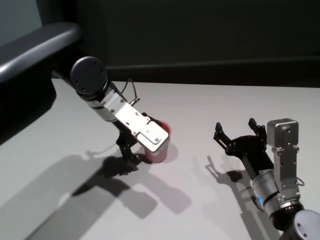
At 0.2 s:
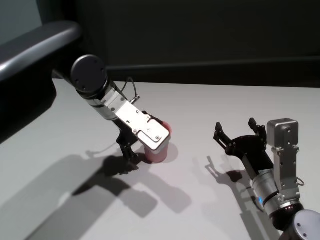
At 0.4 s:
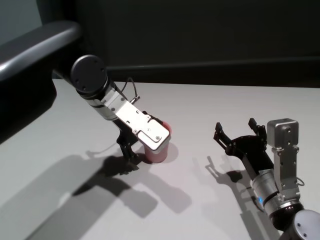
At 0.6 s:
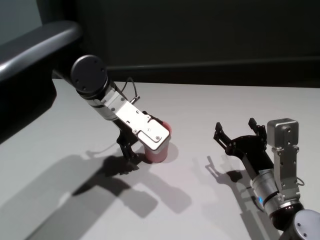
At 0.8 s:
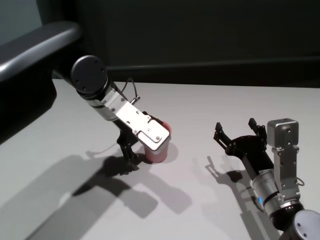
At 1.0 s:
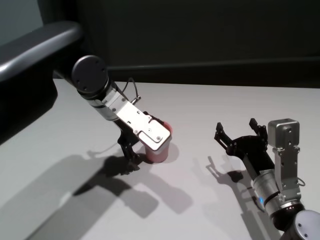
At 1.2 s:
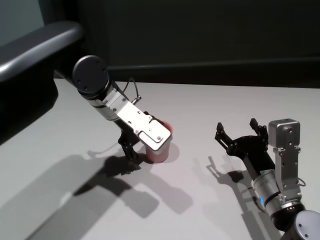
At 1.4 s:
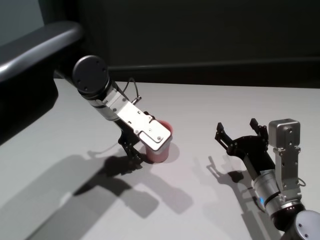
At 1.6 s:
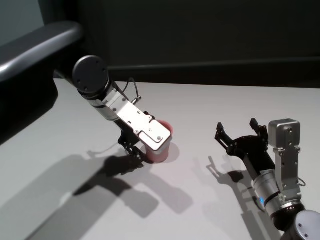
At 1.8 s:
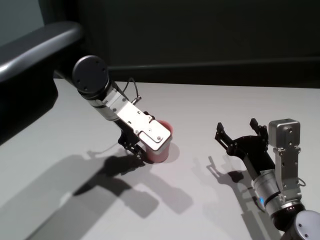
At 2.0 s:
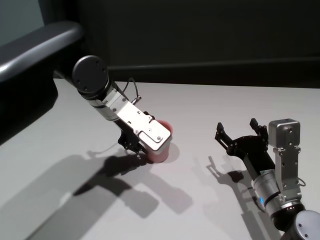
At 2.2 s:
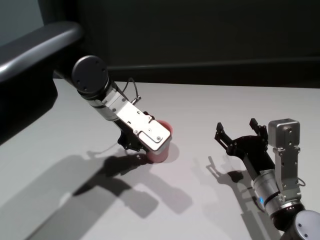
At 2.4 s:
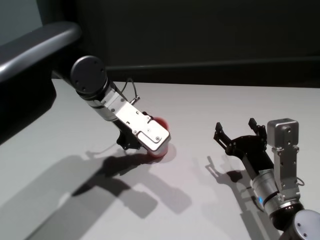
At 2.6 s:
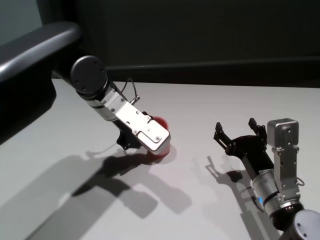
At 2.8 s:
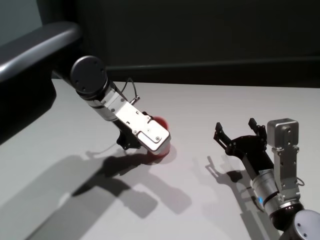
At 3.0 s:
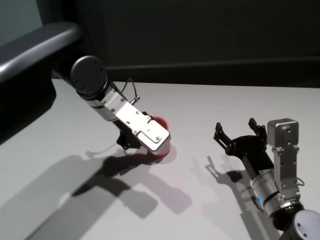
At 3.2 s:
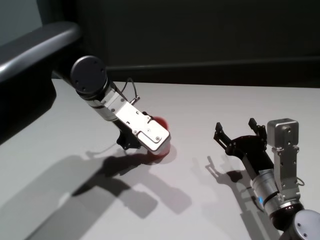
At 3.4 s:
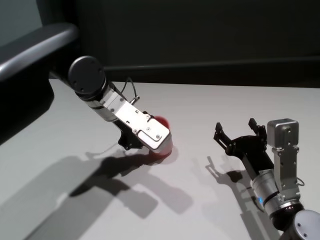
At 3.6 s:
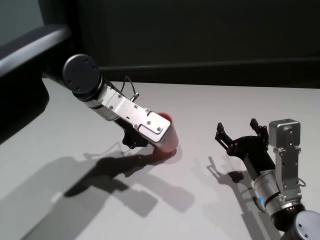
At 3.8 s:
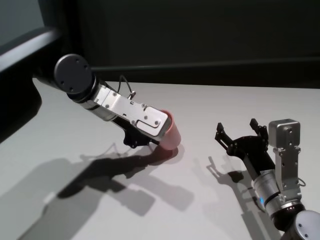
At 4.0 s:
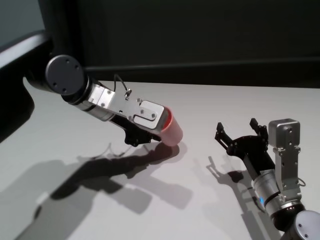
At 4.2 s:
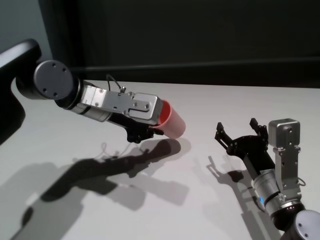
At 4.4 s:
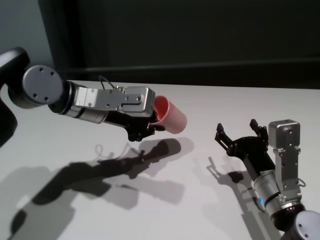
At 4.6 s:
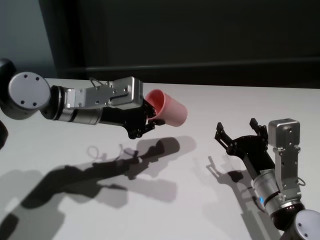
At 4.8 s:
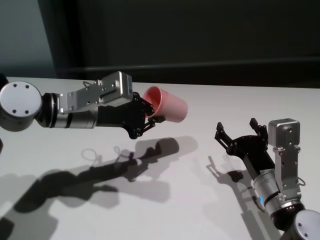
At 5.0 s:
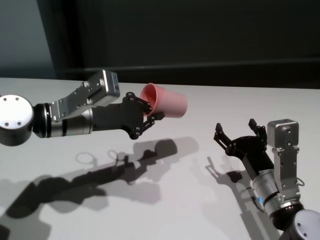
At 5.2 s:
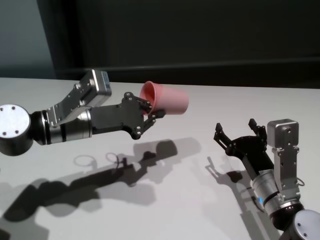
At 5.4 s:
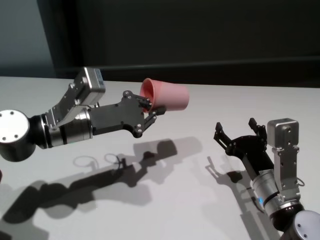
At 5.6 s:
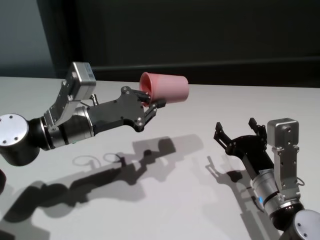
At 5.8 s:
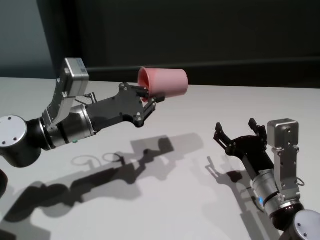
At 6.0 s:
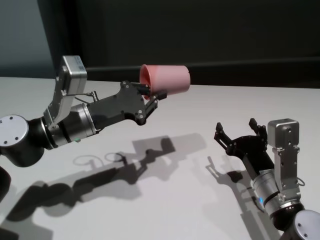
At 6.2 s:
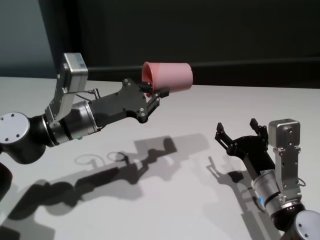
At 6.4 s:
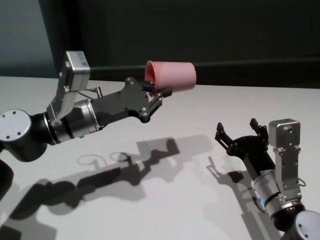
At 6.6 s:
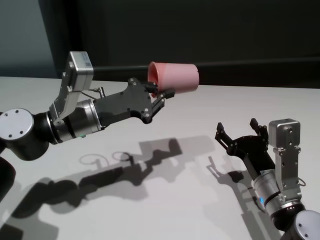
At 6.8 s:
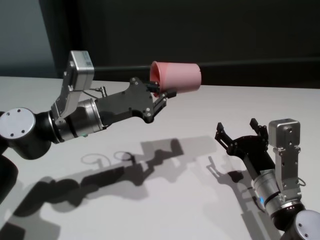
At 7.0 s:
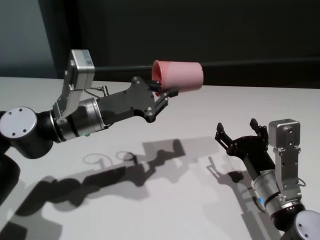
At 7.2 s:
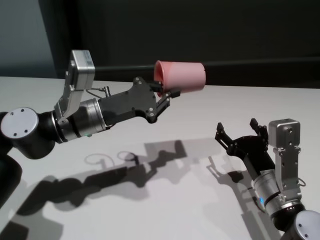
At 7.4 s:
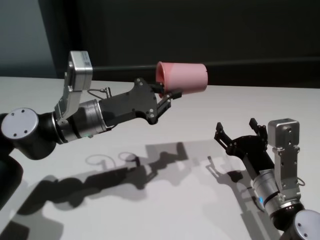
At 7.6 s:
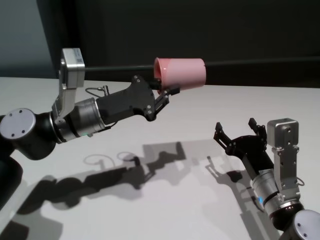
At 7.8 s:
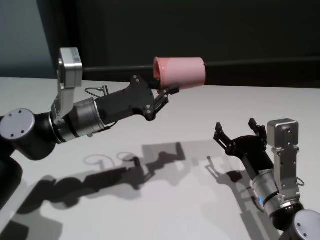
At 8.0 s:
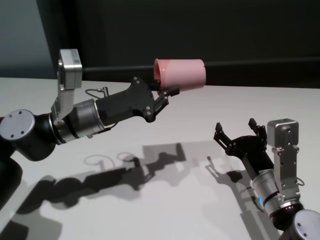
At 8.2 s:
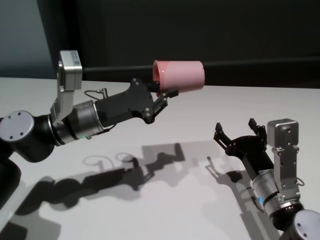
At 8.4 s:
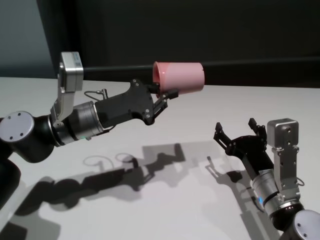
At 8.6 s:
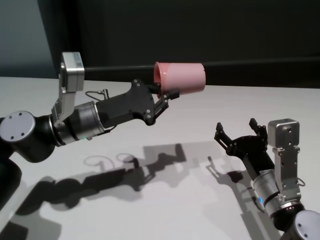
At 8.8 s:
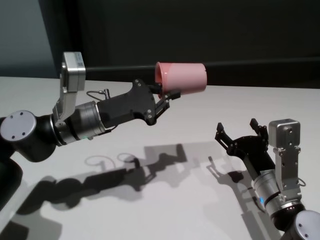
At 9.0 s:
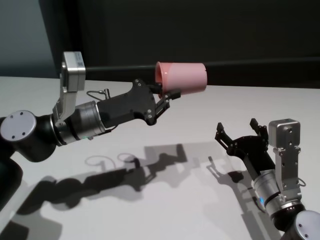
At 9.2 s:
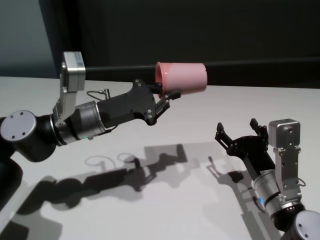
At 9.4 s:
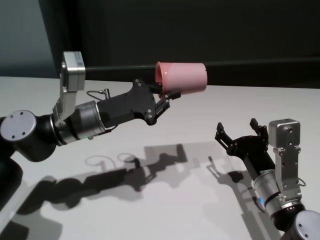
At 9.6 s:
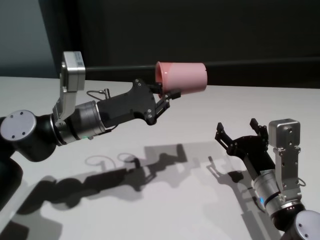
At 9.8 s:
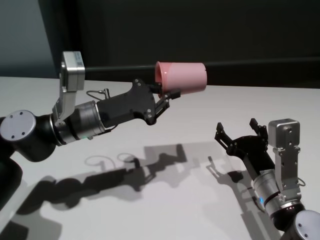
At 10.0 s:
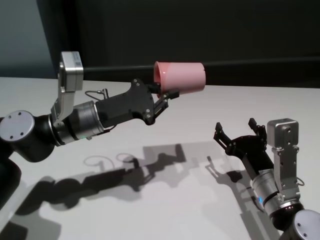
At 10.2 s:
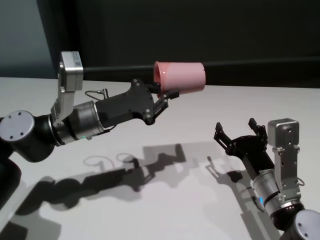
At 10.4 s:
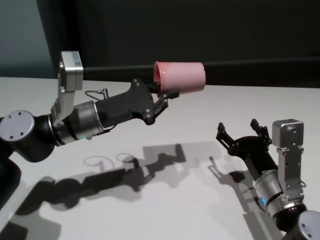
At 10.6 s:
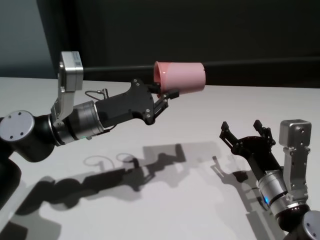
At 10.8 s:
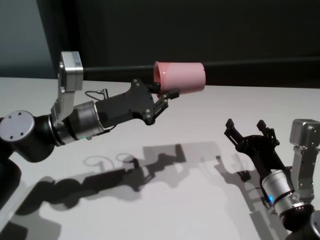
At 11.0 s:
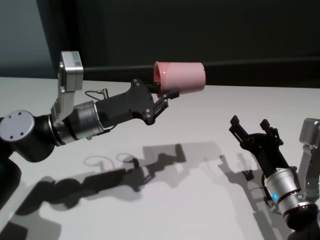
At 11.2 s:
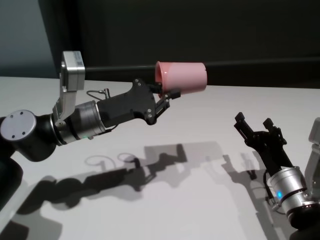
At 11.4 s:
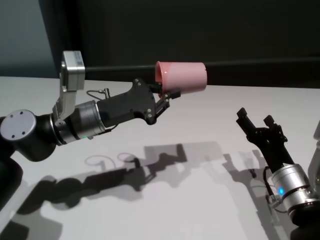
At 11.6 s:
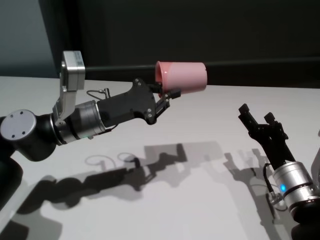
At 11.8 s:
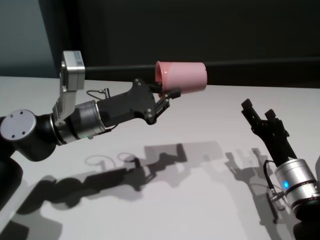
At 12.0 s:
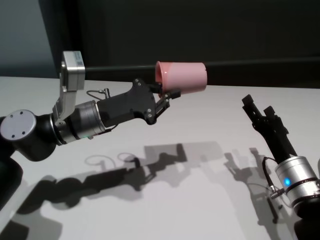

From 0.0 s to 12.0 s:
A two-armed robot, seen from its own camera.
Task of the whole recording: On the white table pick up the cup with one hand and transfer it to the other hand before turning it over.
Step, from 0.0 s to 2.4 s: Grasp the cup with left gripper.

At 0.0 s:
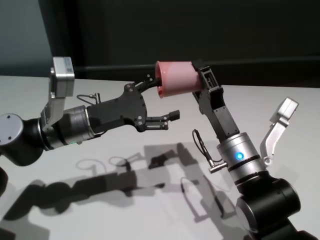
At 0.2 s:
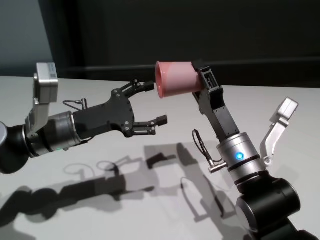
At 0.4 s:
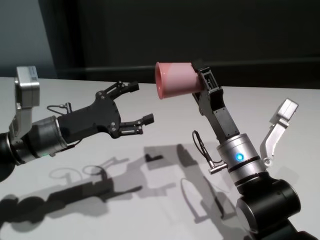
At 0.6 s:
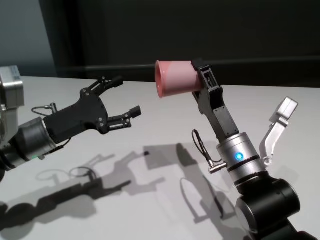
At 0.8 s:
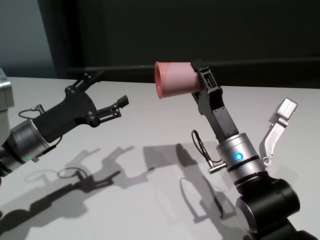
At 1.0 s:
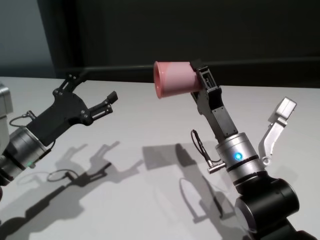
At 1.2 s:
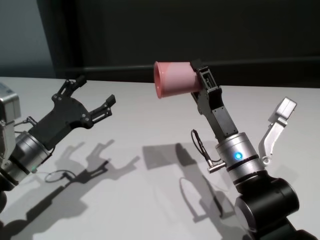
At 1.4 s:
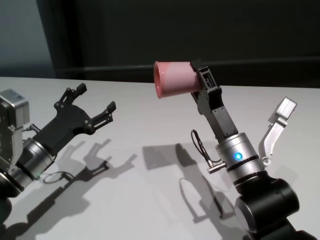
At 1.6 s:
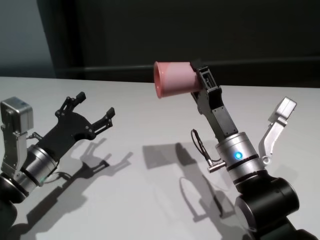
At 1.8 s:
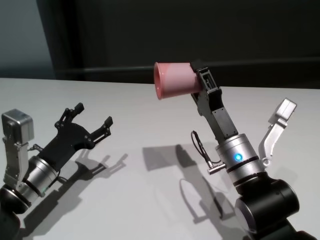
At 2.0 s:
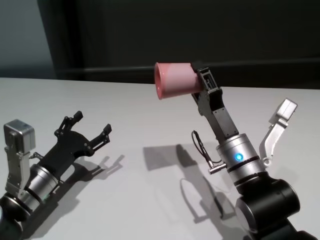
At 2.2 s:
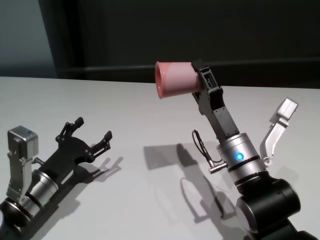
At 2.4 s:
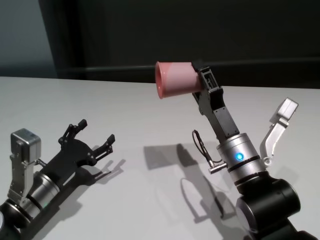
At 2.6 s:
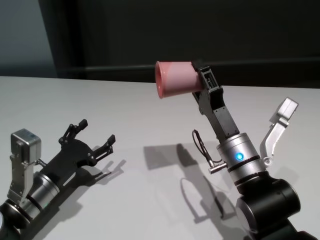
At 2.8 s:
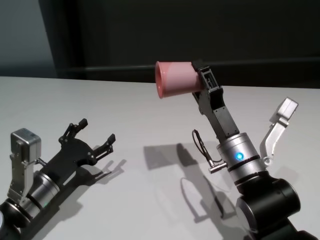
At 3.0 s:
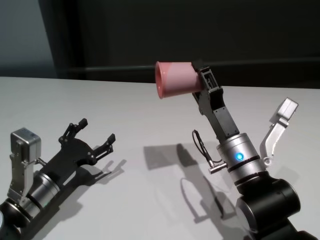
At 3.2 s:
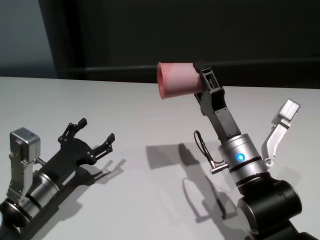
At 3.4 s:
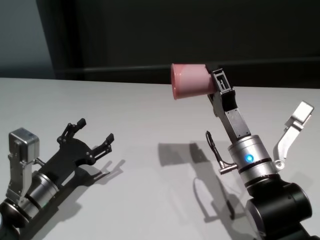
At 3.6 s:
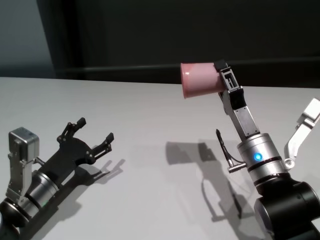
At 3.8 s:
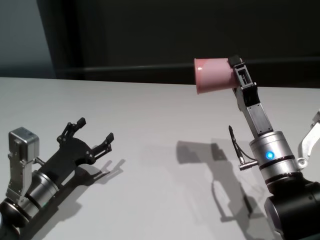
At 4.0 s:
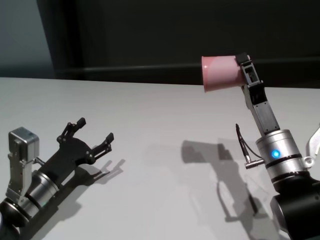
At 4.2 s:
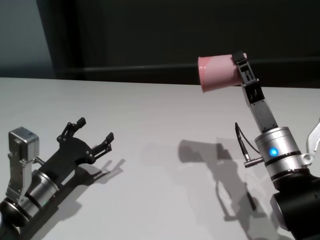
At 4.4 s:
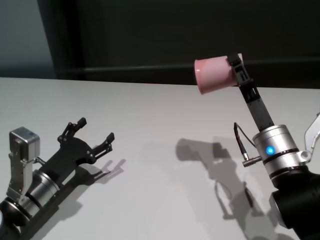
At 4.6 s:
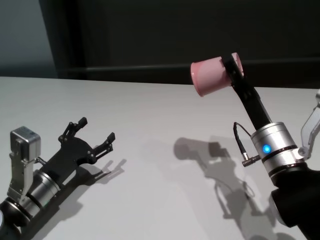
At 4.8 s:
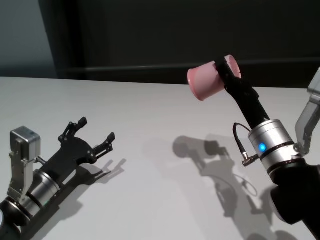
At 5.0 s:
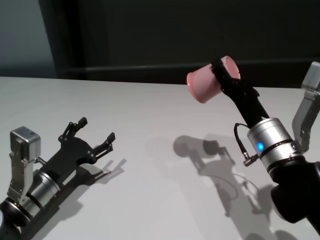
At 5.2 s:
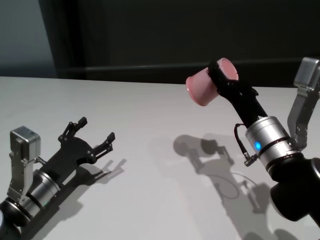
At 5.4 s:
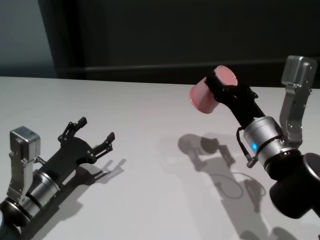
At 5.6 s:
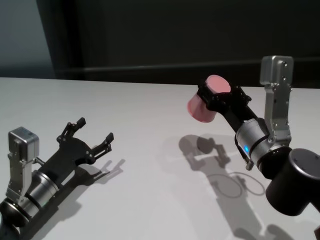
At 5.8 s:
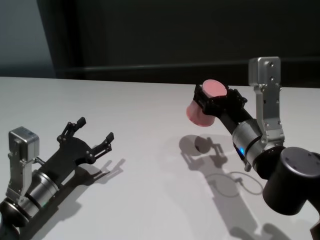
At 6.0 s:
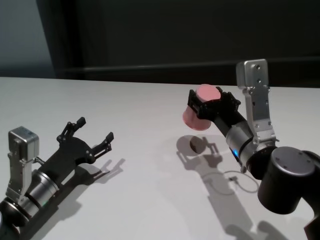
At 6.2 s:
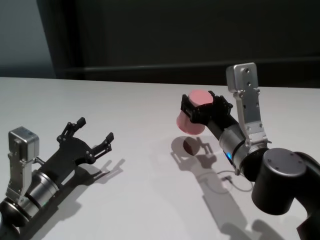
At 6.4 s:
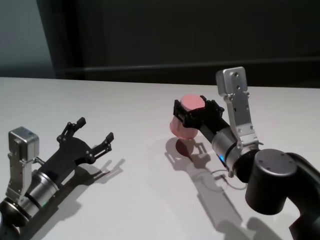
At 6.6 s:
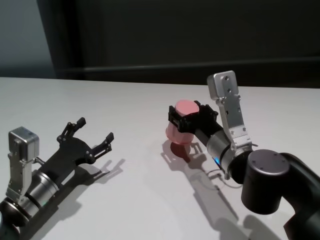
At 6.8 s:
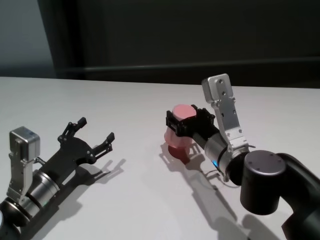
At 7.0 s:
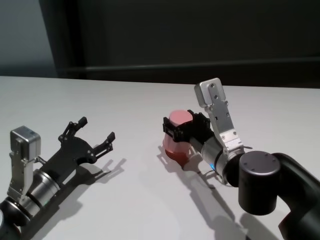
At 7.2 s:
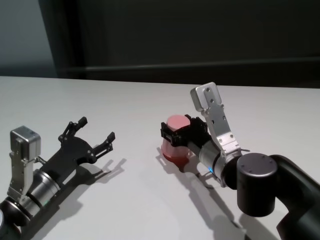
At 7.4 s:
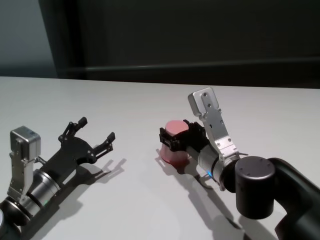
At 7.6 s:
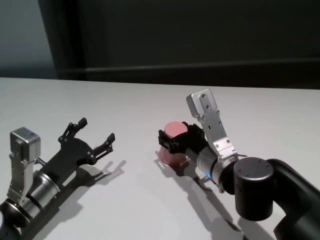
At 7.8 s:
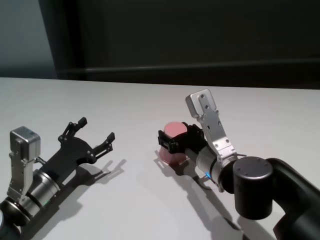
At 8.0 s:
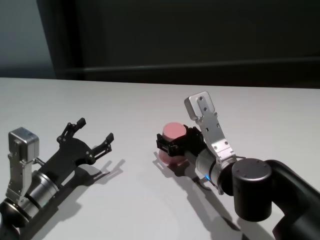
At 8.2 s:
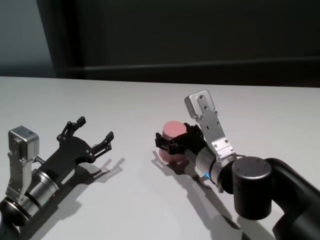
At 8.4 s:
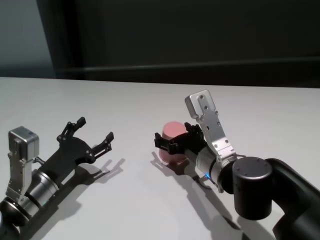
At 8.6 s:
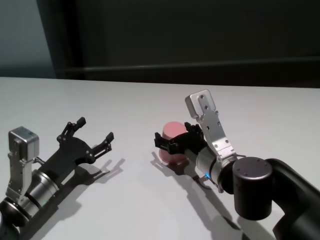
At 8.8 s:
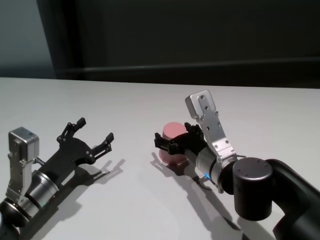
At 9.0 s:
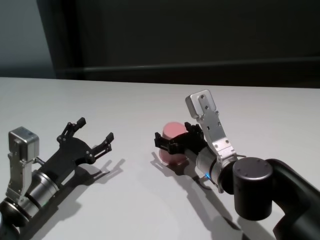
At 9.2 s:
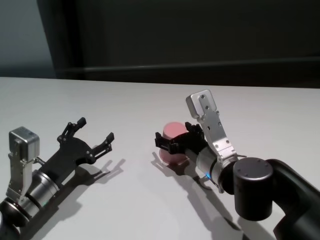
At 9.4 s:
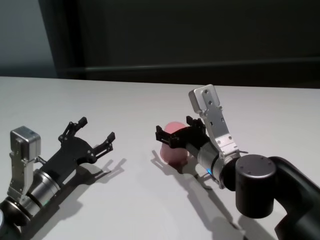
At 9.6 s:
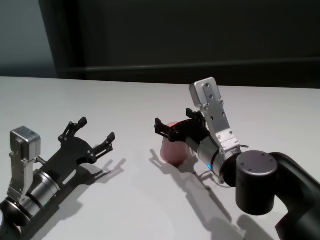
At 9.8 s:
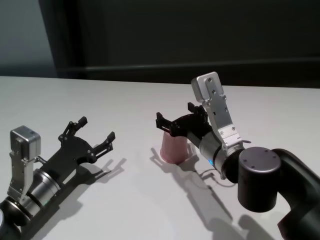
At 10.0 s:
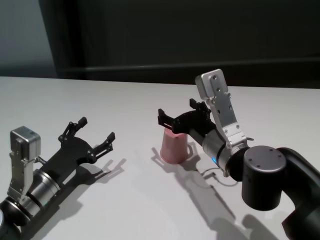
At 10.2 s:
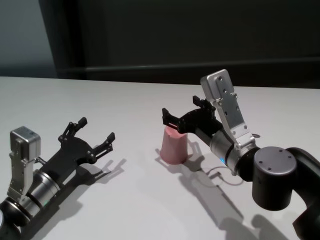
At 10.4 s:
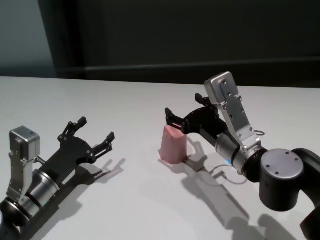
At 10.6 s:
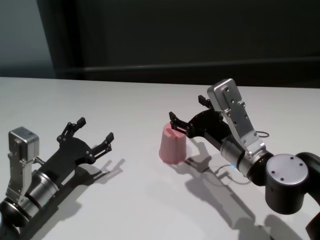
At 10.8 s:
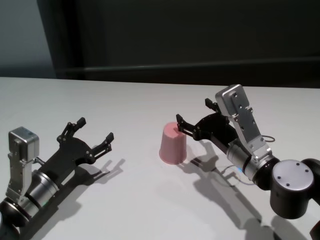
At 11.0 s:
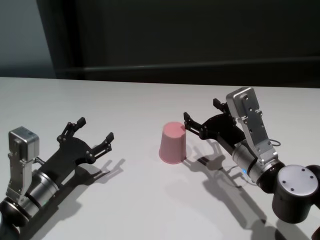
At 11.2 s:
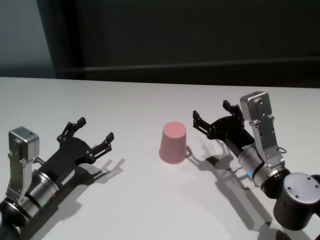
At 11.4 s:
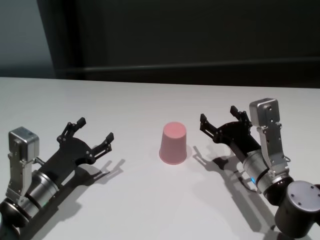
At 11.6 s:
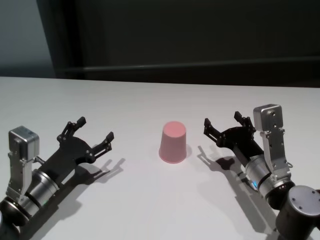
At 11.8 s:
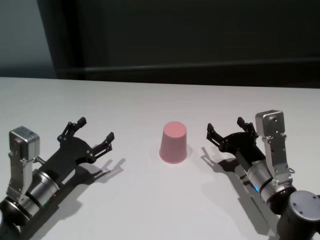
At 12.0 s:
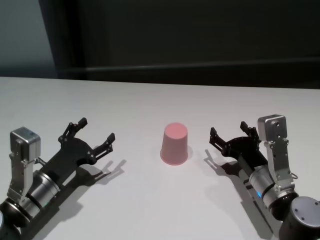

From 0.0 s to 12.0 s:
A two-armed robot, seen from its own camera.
Task of the whole recording: On the white table pick up the cup with one hand and transfer it to the other hand before turning it over.
Step, from 0.4 s to 8.2 s: Place the cup on the table with right gripper.
